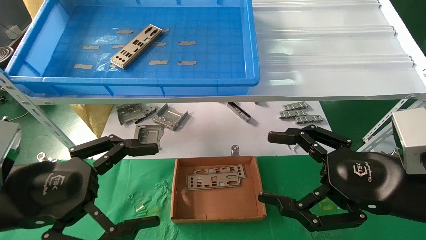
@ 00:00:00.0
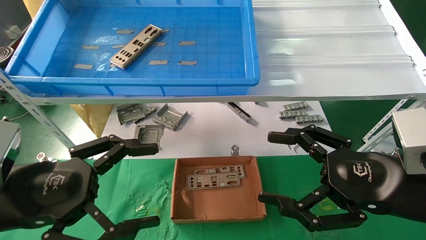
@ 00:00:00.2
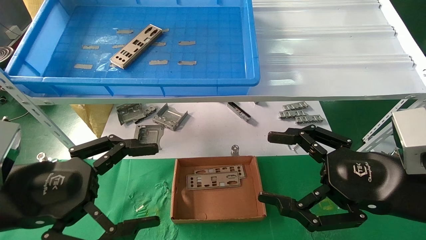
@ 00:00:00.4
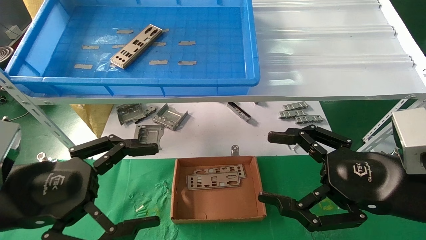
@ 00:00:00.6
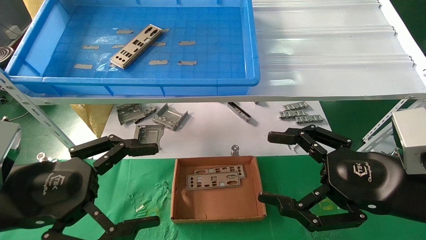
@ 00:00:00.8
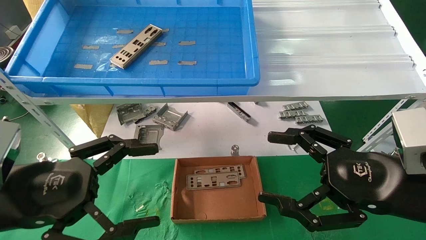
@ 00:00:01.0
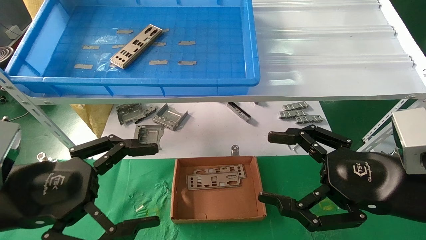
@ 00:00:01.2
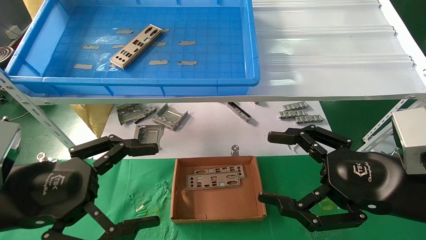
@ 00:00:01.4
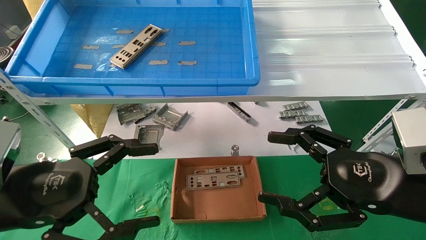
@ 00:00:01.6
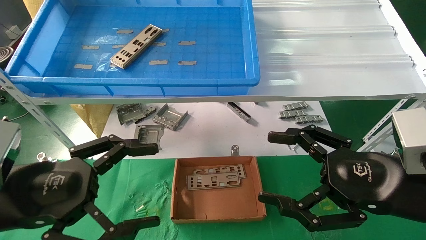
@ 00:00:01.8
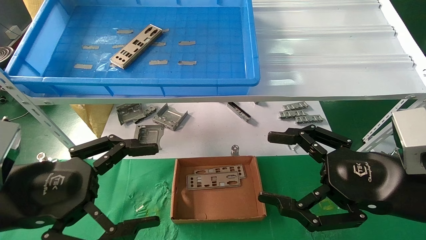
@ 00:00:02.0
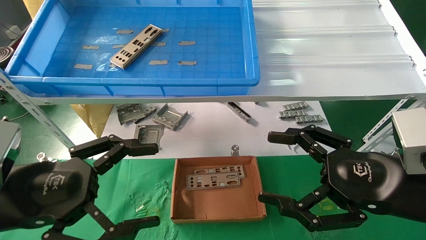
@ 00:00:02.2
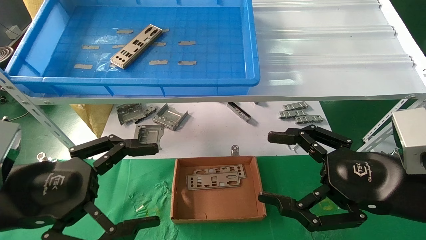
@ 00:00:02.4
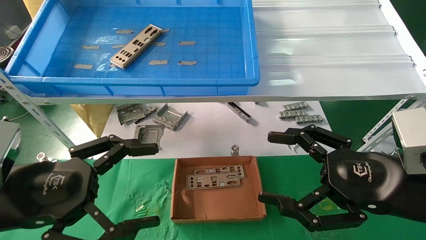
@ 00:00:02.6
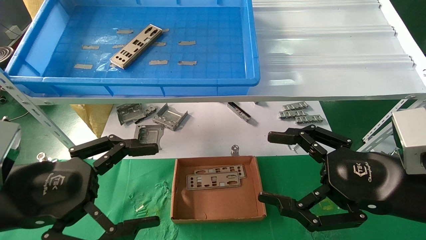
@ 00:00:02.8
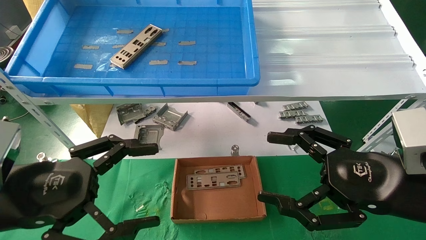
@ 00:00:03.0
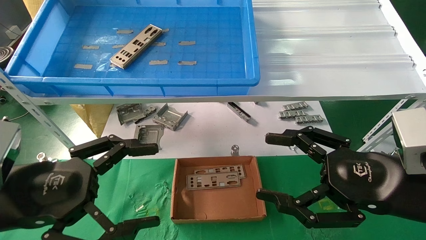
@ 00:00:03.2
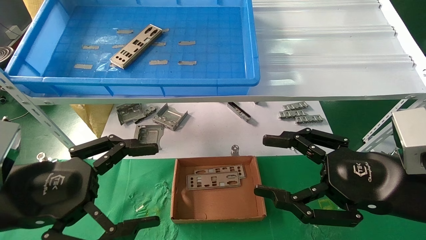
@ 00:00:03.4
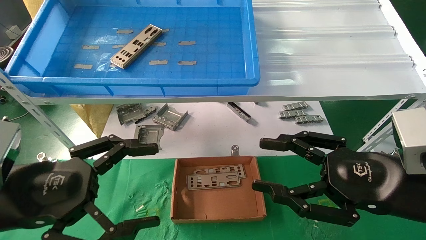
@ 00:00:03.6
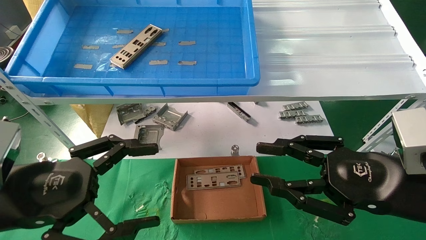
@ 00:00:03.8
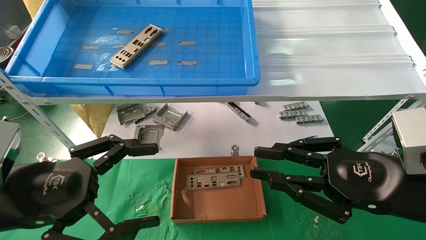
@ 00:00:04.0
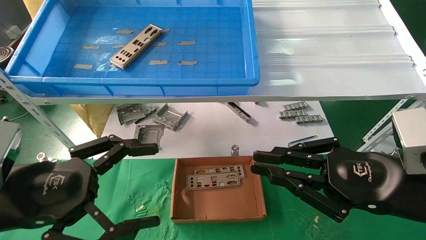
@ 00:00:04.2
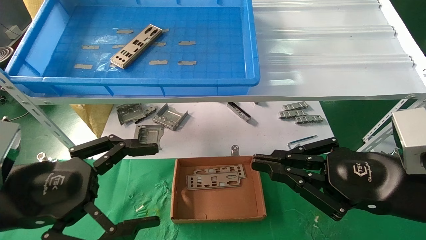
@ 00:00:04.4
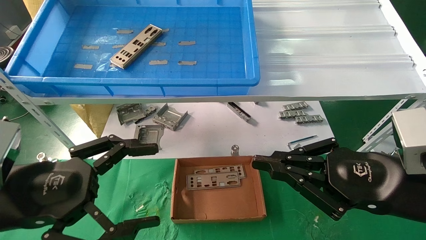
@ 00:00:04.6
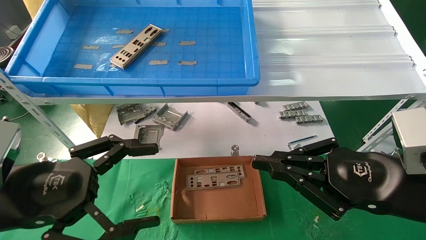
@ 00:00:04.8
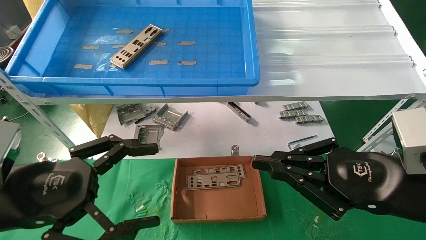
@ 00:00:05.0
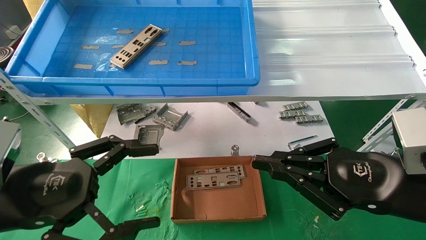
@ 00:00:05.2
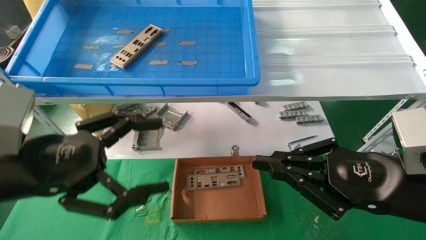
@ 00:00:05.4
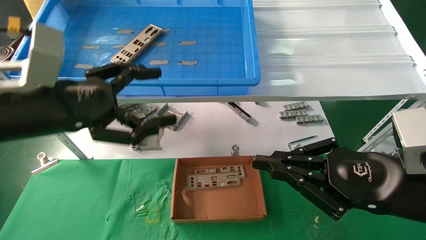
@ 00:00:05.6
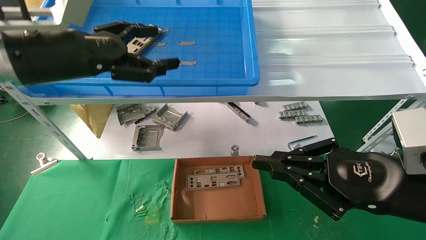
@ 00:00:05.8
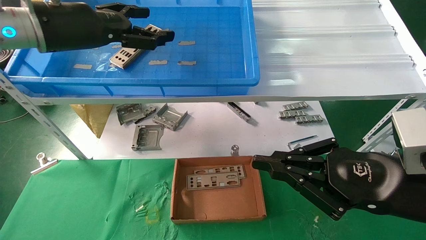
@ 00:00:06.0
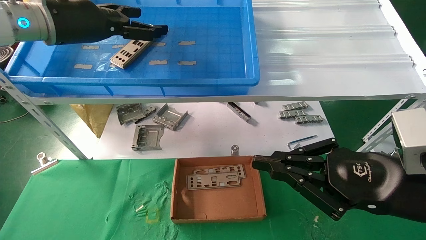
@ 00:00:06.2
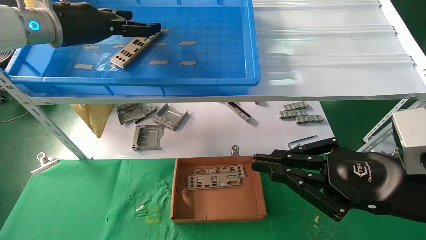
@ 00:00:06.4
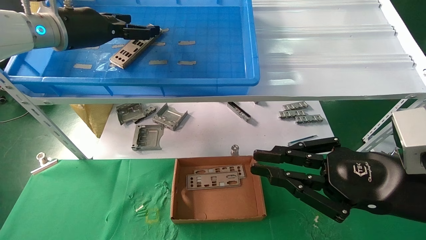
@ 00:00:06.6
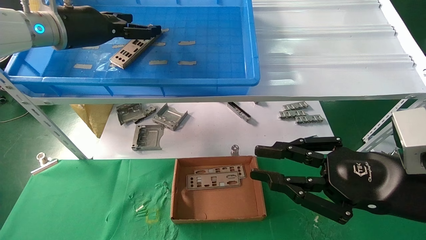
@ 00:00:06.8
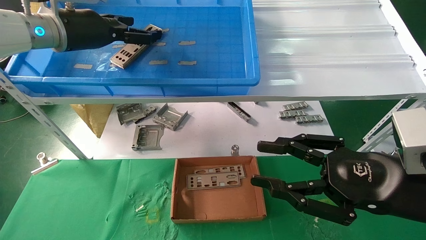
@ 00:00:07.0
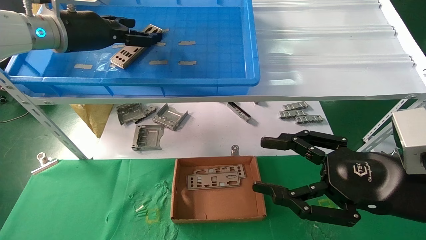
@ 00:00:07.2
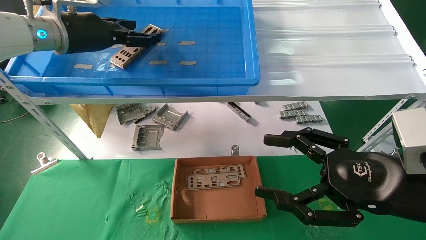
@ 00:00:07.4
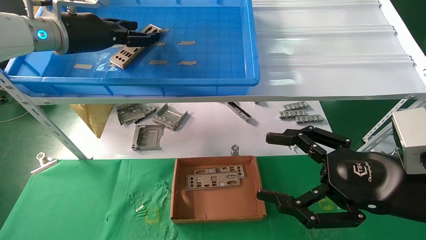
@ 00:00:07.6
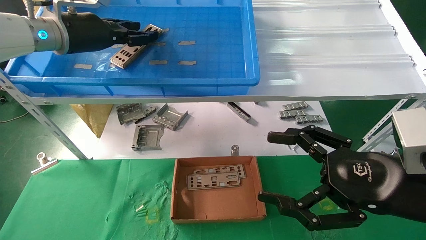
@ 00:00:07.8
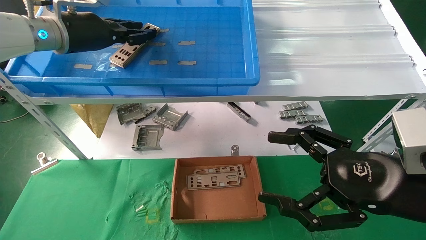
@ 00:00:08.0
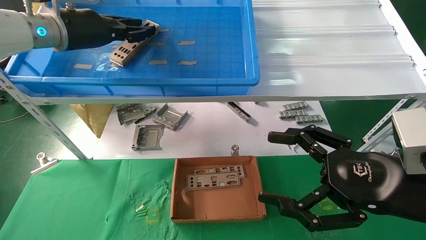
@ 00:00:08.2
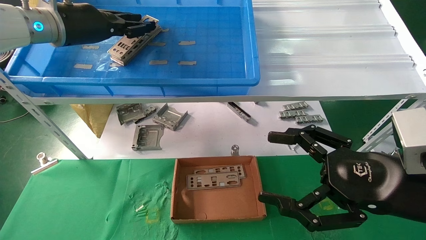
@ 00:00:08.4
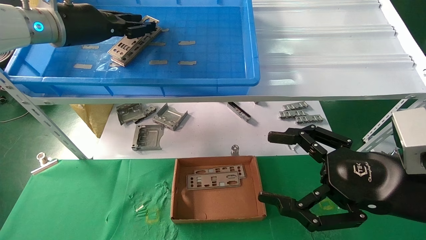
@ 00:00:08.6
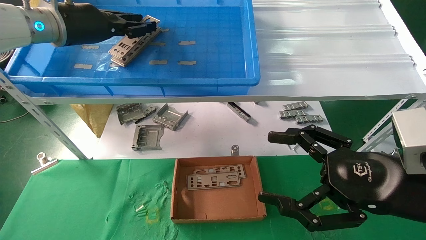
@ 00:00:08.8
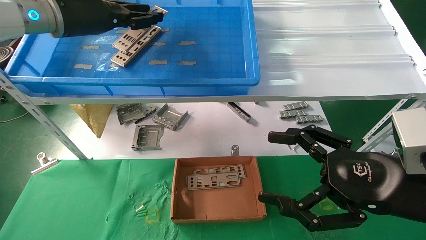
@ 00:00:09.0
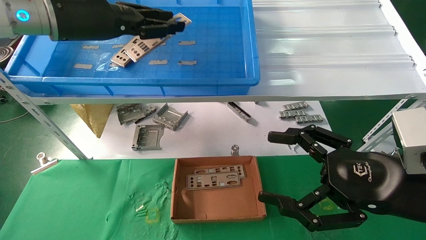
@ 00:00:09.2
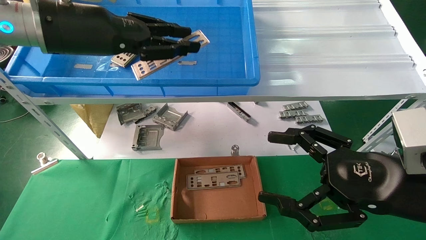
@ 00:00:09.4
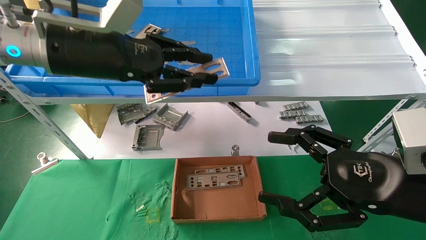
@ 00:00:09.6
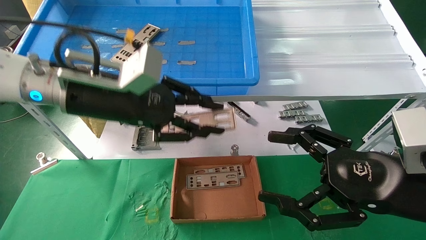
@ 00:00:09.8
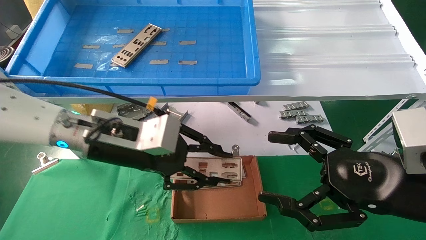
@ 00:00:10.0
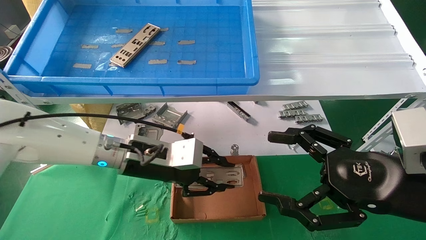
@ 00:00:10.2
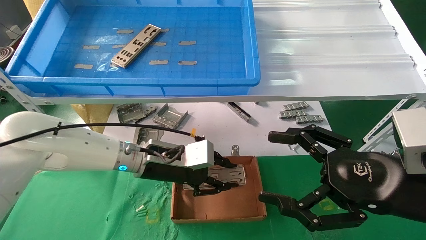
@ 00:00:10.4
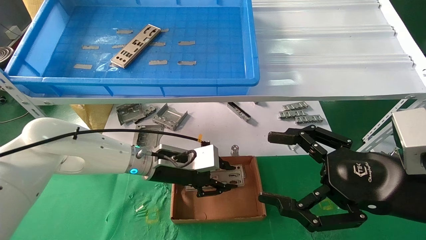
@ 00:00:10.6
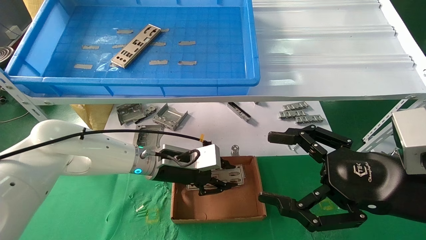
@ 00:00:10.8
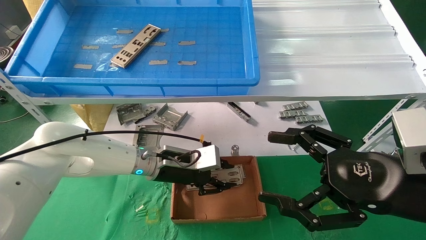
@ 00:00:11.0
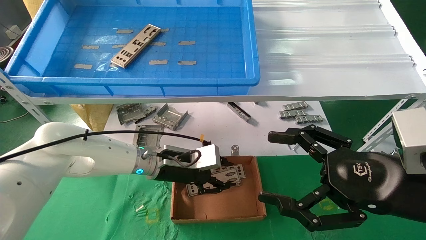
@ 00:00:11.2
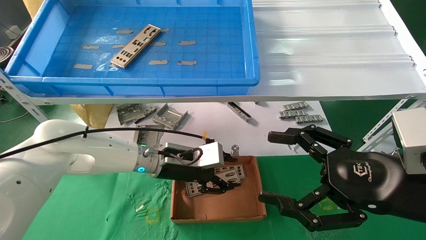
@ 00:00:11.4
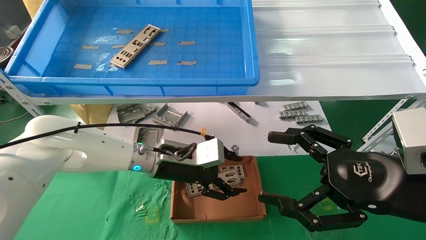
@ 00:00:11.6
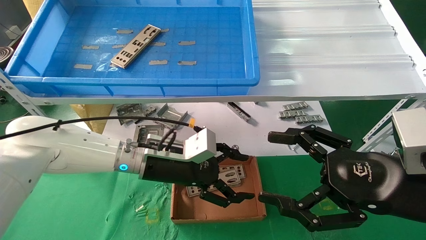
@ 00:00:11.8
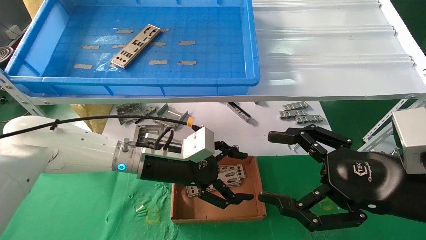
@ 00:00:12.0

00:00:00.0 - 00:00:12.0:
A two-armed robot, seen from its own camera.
Task of the whole recording: pick up the parts on the tray and put them in the cardboard box.
Step, 00:00:05.8 - 00:00:08.2: Pick up the IO bracket from the container box.
Step, 00:00:08.4 - 00:00:11.2: Place the IO bracket into the ingredient slot.
00:00:00.0 - 00:00:03.0: Neither gripper changes place.
00:00:03.0 - 00:00:04.4: The right gripper closes its fingers.
00:00:04.4 - 00:00:06.0: The left gripper is displaced upward and forward by roughly 25 cm.
00:00:06.0 - 00:00:07.6: The left gripper goes approximately 5 cm forward; the right gripper opens.
00:00:07.6 - 00:00:09.0: The left gripper closes.
00:00:09.0 - 00:00:10.4: The left gripper goes some 30 cm downward and to the right.
00:00:10.4 - 00:00:12.0: The left gripper opens its fingers.

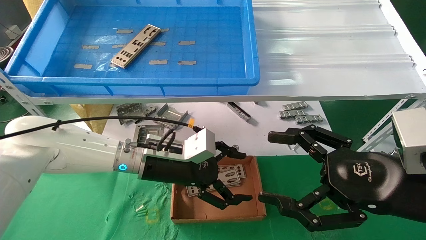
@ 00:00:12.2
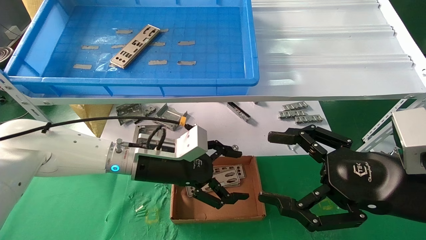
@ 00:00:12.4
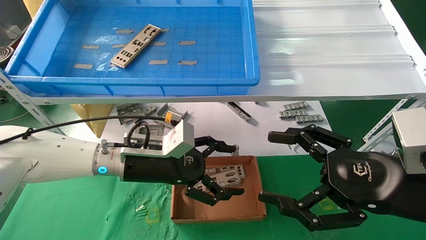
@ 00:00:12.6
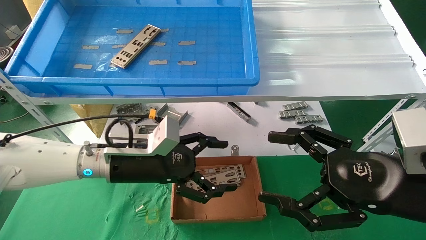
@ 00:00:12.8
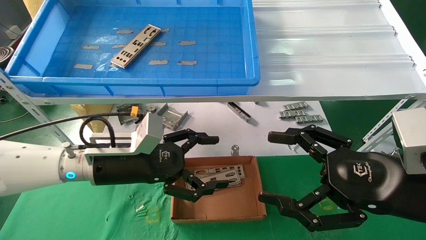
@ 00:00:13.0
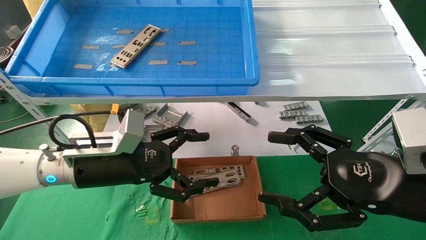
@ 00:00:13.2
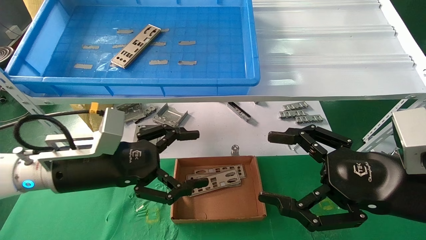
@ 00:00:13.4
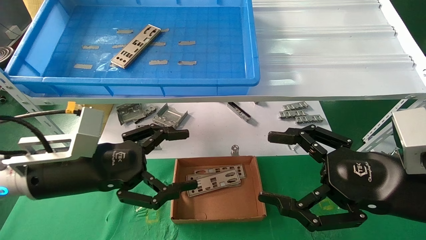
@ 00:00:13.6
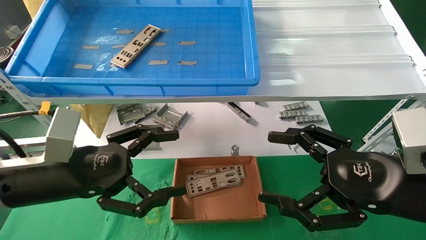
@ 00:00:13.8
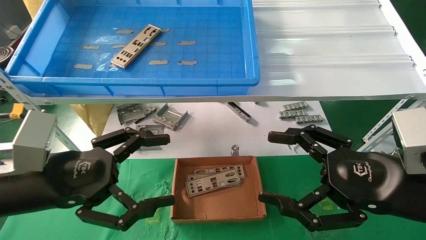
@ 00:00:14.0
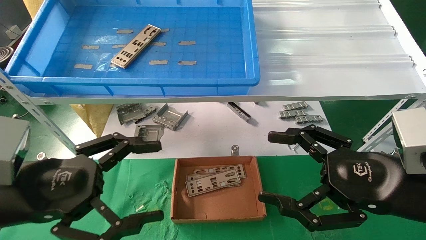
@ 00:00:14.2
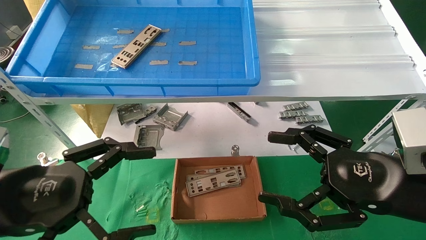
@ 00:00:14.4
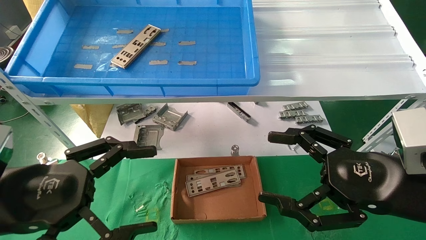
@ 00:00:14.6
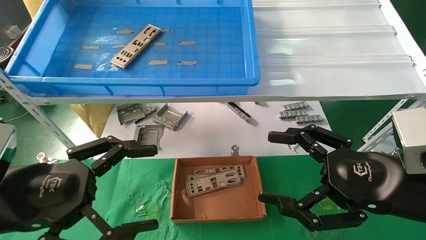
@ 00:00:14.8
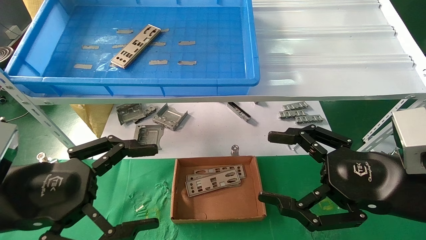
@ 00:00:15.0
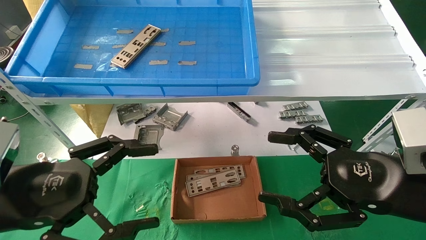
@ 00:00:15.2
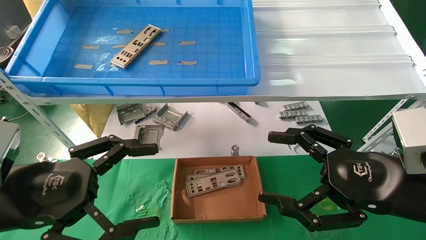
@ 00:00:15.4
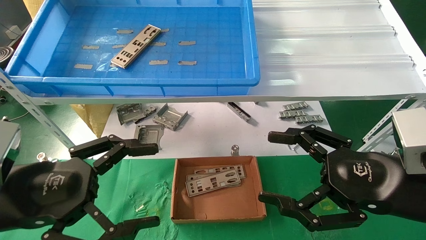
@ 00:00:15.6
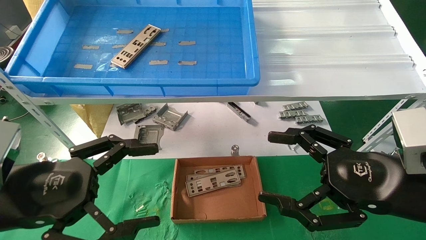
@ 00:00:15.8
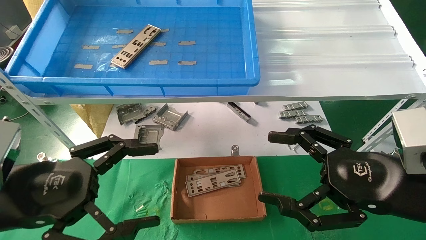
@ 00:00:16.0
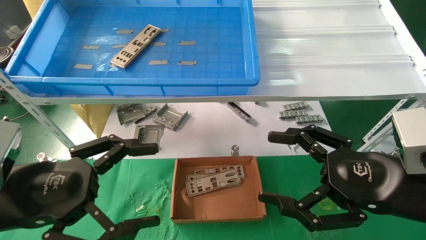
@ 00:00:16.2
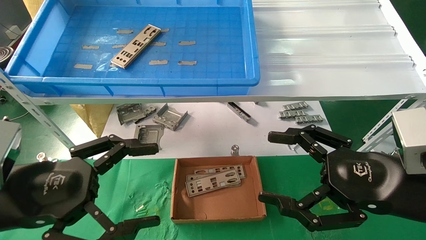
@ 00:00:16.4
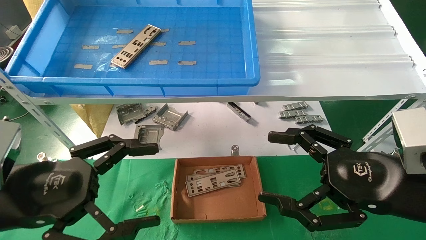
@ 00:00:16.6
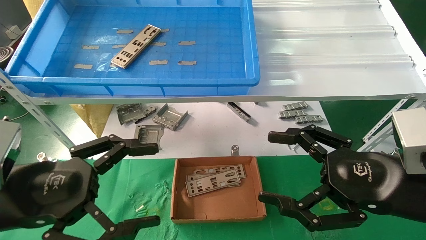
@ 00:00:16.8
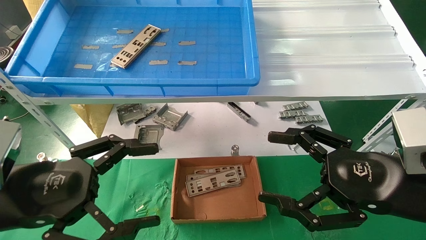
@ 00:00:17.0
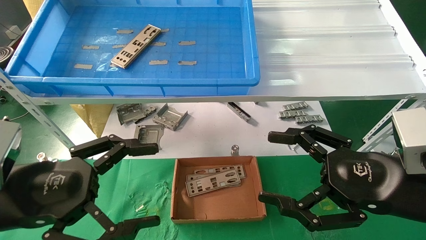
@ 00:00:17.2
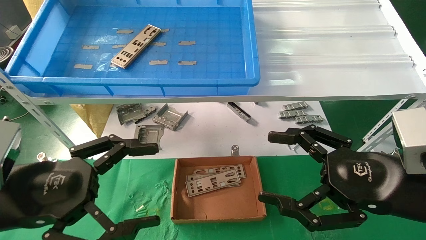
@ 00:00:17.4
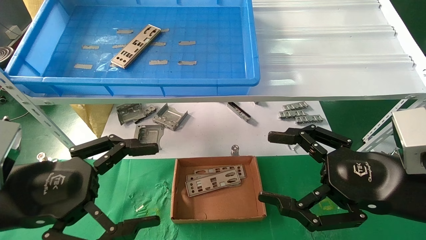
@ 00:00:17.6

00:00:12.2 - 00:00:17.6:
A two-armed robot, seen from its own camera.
Task of the whole recording: pick up the parts on the tray and put them in the cardboard box.
00:00:12.2 - 00:00:13.6: The left gripper travels to the left and backward by about 15 cm.
00:00:13.6 - 00:00:15.0: The left gripper goes about 10 cm backward.
00:00:15.0 - 00:00:17.6: Neither gripper changes place.
